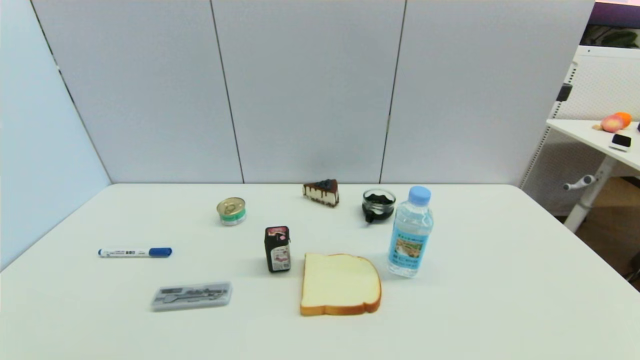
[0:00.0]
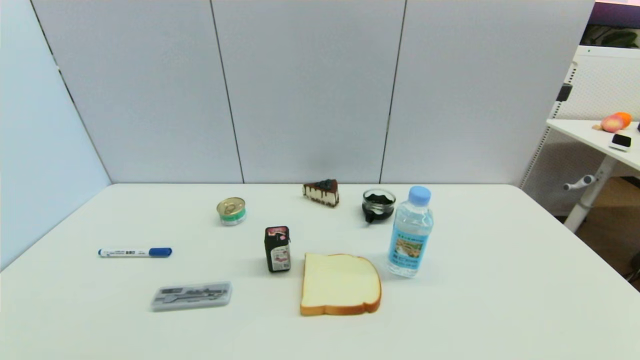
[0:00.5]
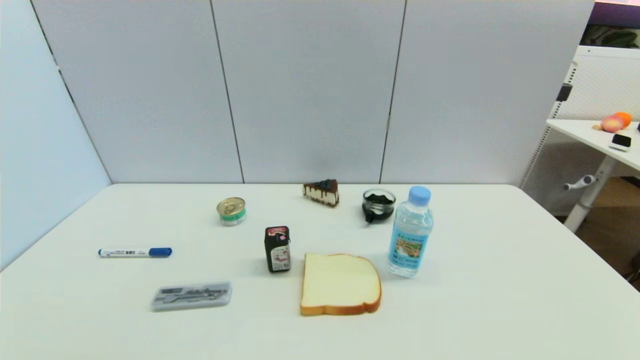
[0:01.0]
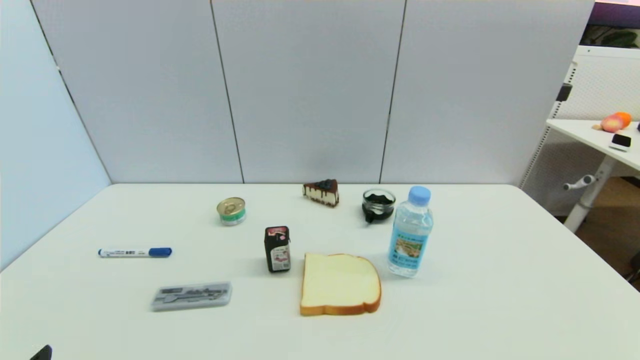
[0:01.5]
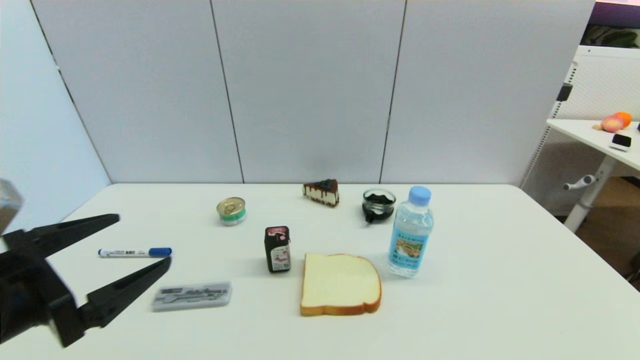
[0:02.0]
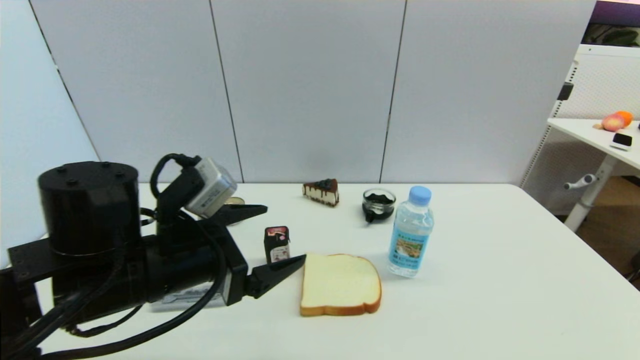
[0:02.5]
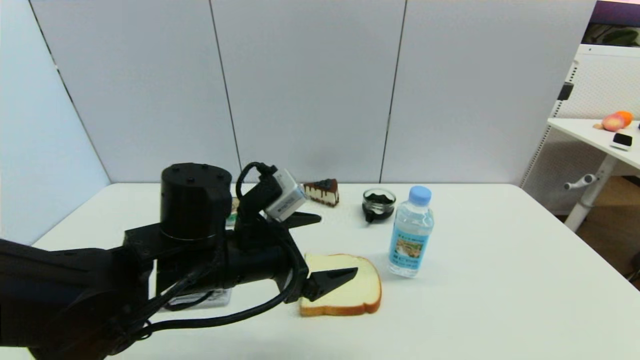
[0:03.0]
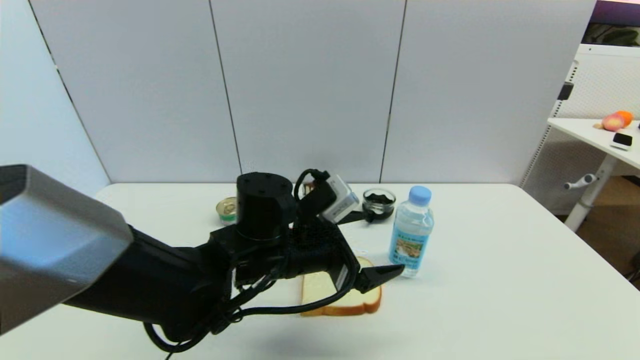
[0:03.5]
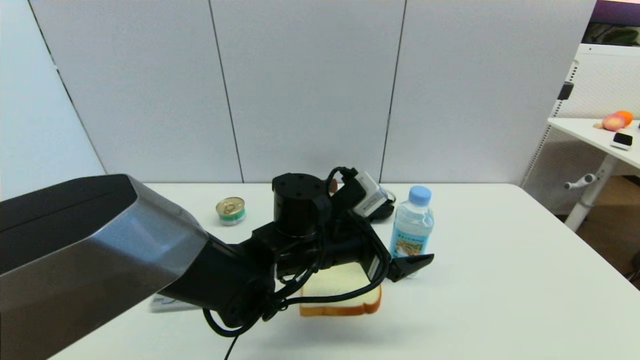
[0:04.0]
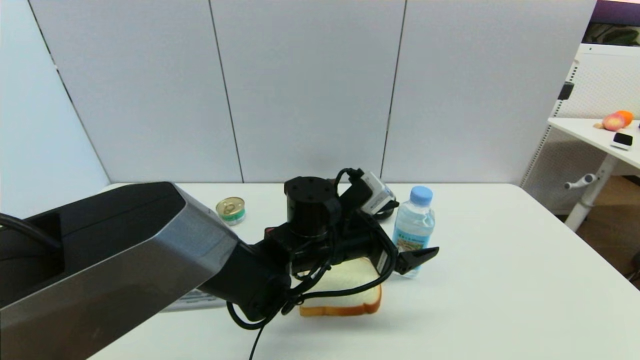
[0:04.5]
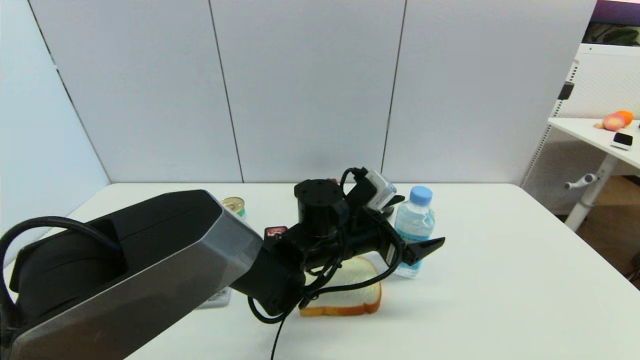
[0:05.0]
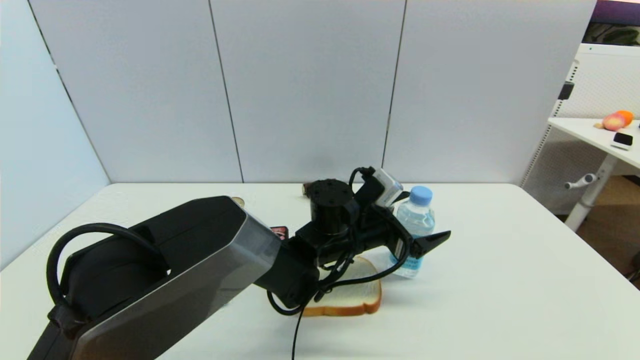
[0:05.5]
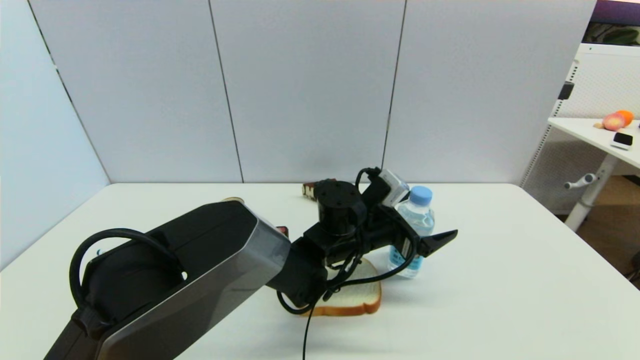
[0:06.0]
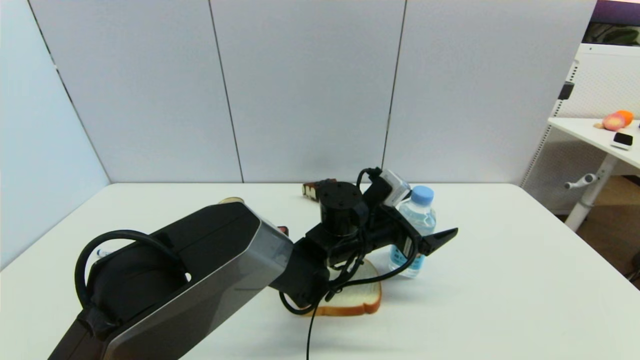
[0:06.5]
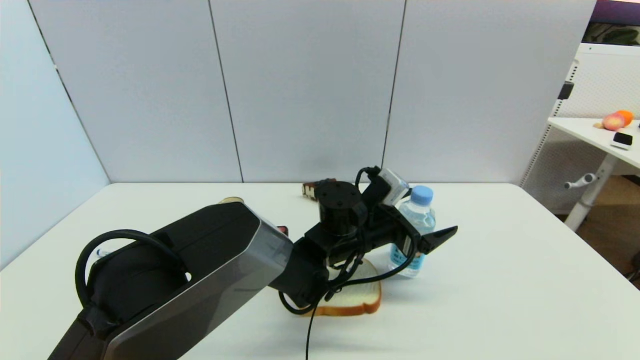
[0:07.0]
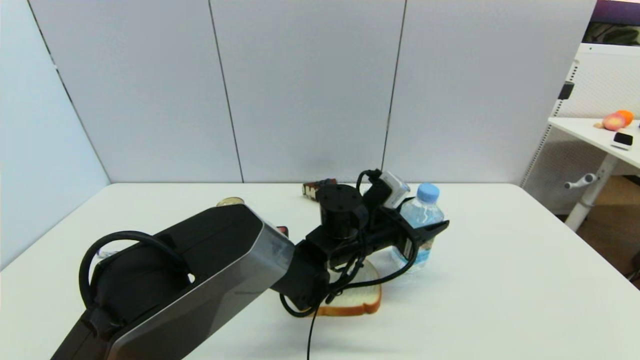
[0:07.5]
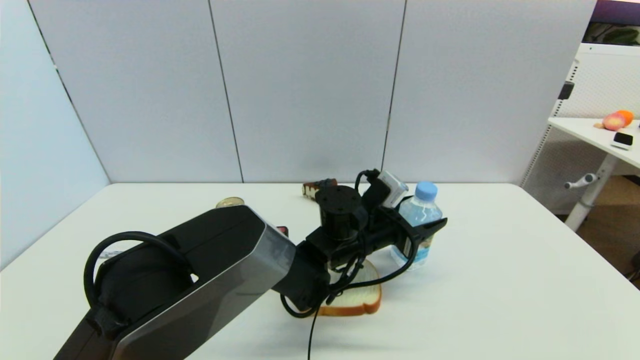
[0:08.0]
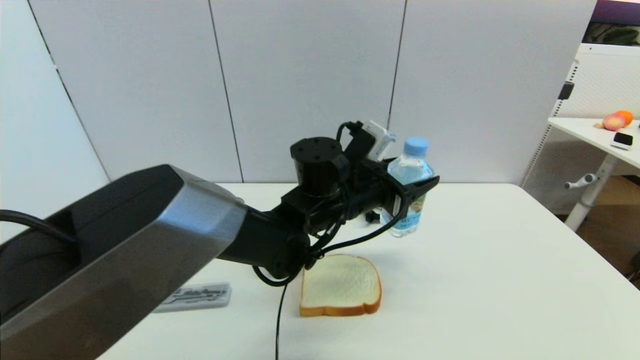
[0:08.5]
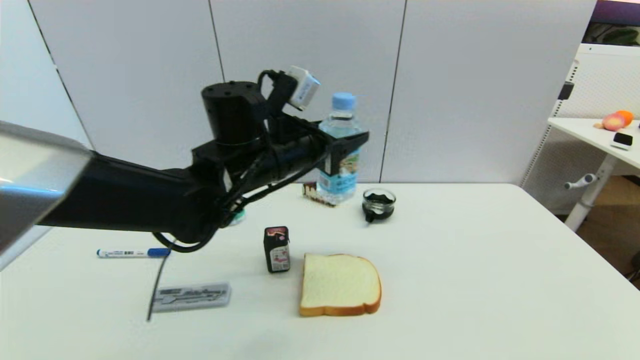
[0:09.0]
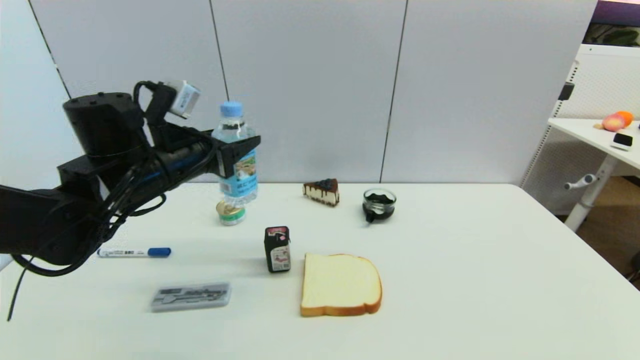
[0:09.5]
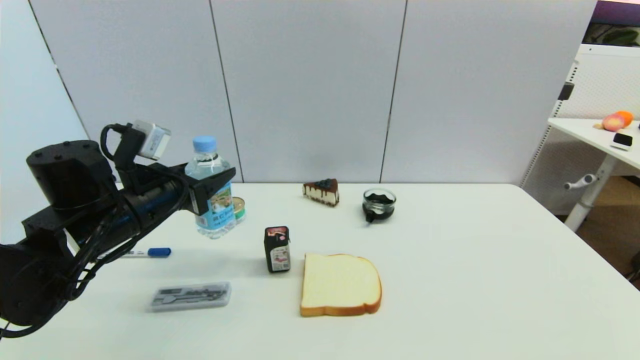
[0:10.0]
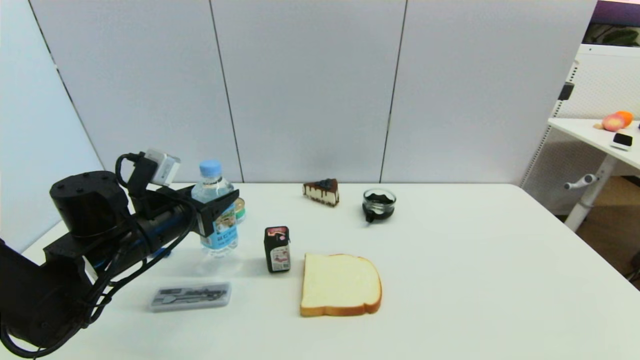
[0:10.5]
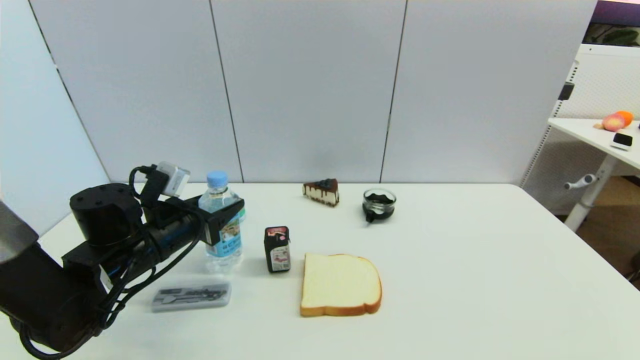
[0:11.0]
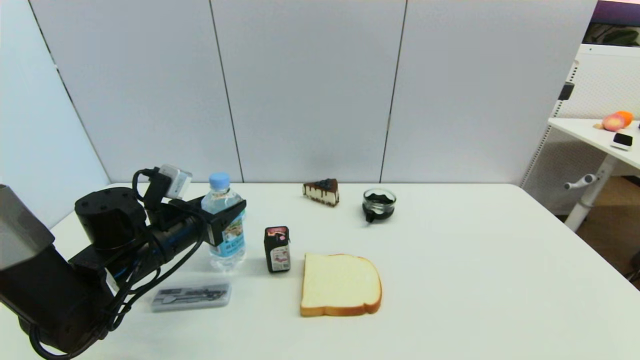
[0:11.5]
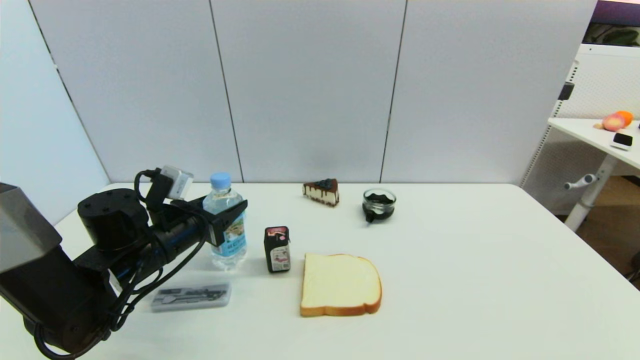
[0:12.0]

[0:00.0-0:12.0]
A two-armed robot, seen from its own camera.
Step, 0:01.5 to 0:07.5: Grasp the soda water with left gripper.
0:00.0 to 0:02.0: The left gripper shifts about 20 cm forward and upward.
0:02.0 to 0:04.0: The left gripper moves to the right and forward, roughly 30 cm.
0:04.0 to 0:06.0: The left gripper goes roughly 5 cm to the right.
0:06.0 to 0:08.0: The left gripper closes its fingers.
0:08.0 to 0:10.0: The left gripper goes roughly 30 cm to the left.
0:10.0 to 0:12.0: The left gripper heads downward, covering about 5 cm.

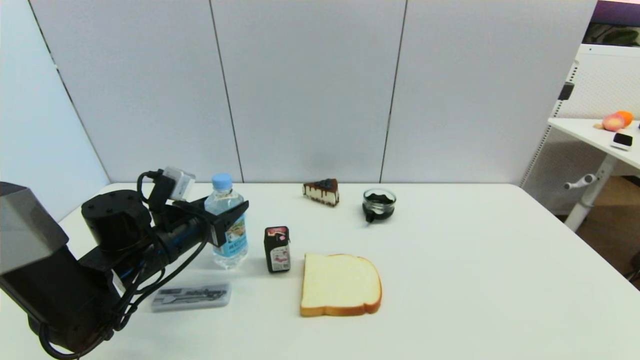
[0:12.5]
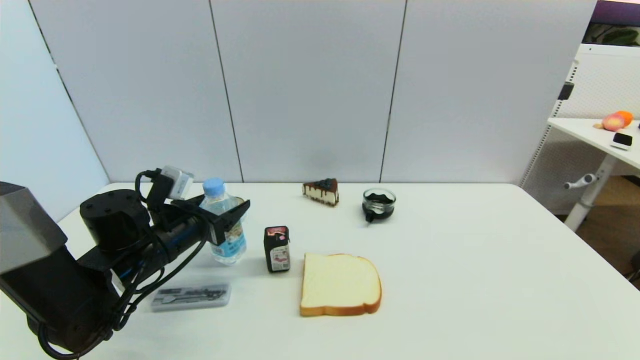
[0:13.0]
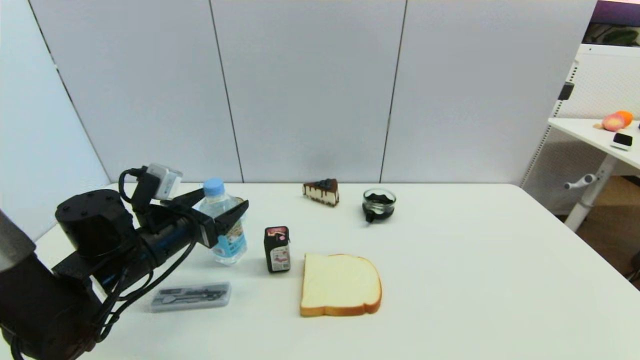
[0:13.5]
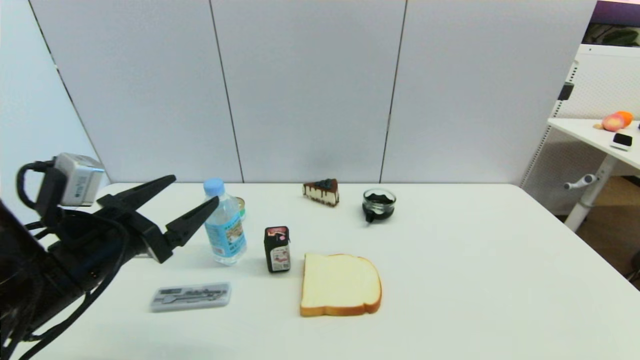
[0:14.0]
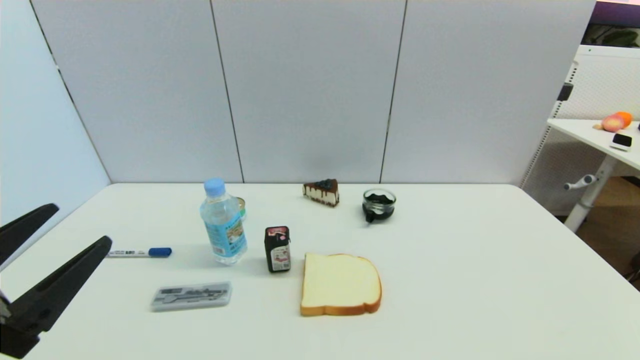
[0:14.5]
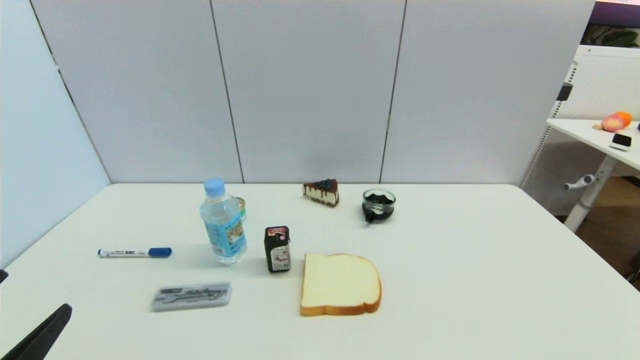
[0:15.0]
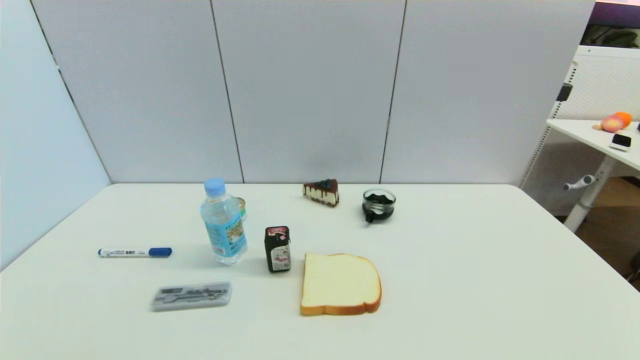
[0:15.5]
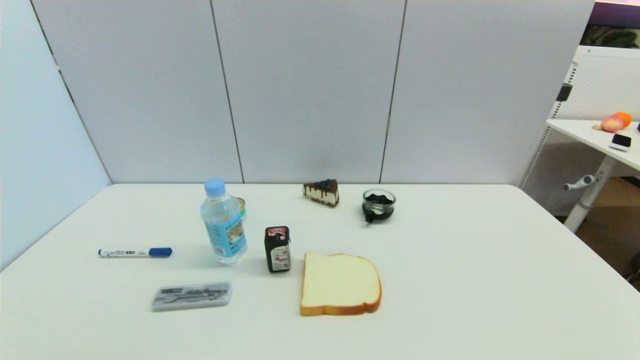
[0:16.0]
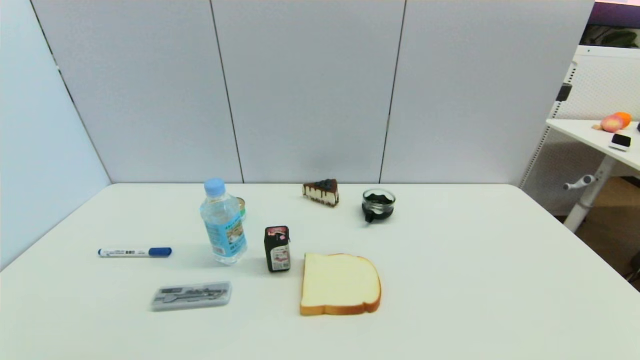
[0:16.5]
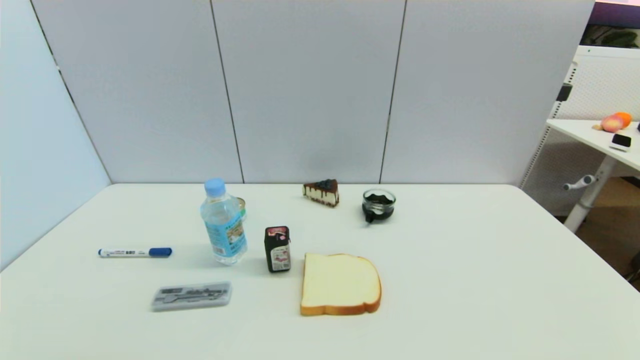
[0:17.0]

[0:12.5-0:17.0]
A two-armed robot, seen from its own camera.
0:12.5 to 0:14.5: The left gripper heads backward, covering about 20 cm, and opens up.
0:14.5 to 0:17.0: The left gripper moves downward and backward, some 15 cm.
